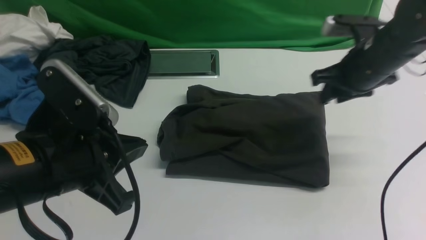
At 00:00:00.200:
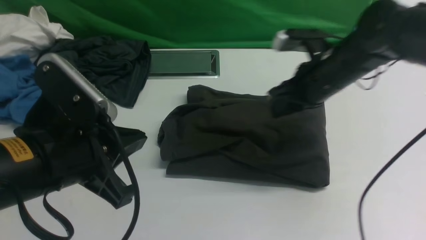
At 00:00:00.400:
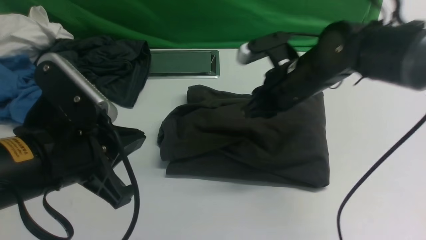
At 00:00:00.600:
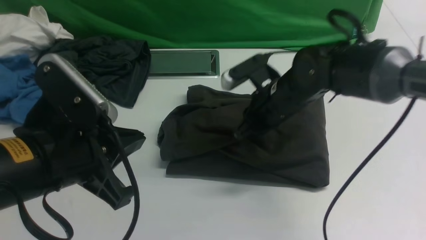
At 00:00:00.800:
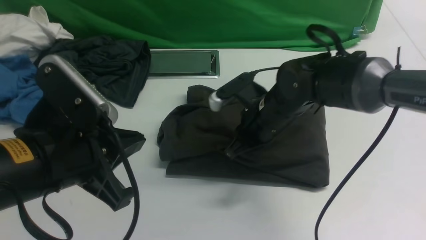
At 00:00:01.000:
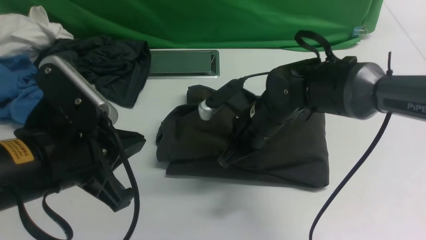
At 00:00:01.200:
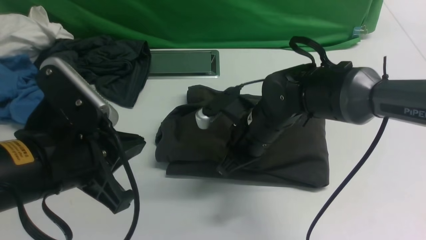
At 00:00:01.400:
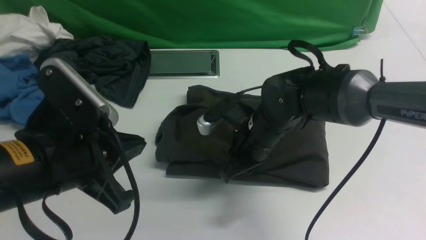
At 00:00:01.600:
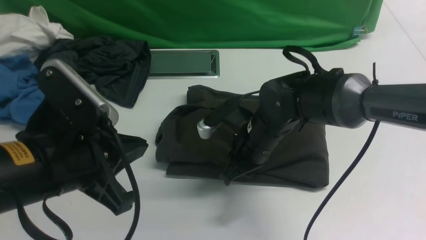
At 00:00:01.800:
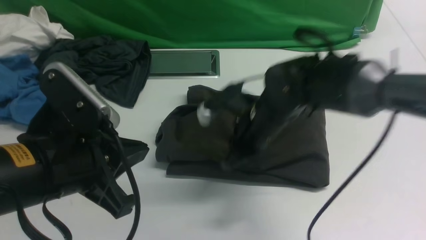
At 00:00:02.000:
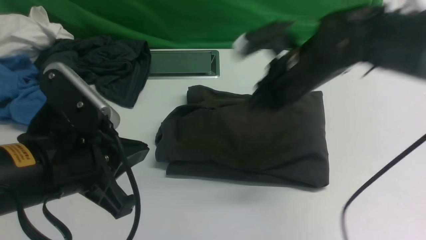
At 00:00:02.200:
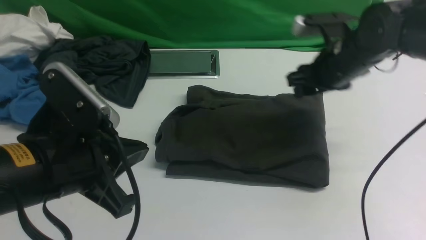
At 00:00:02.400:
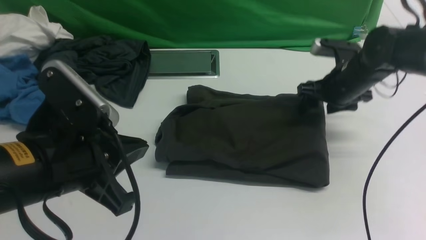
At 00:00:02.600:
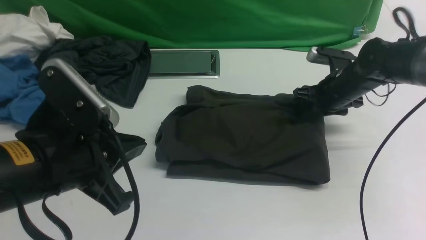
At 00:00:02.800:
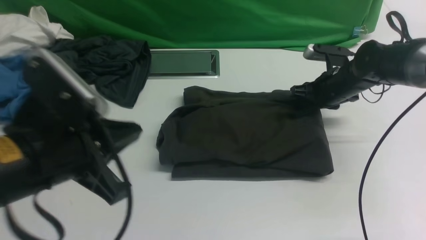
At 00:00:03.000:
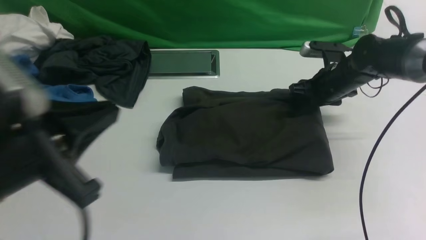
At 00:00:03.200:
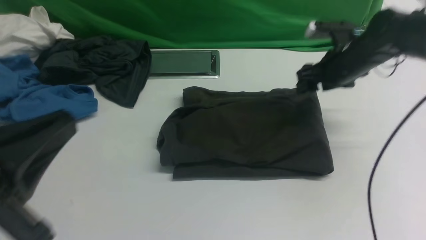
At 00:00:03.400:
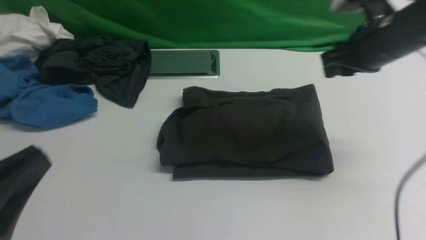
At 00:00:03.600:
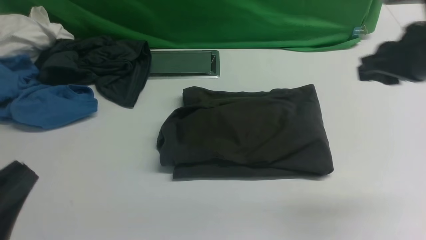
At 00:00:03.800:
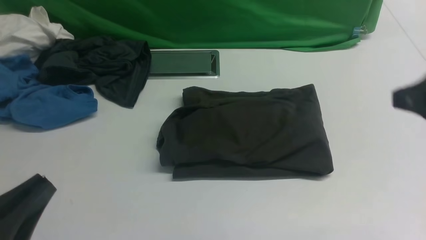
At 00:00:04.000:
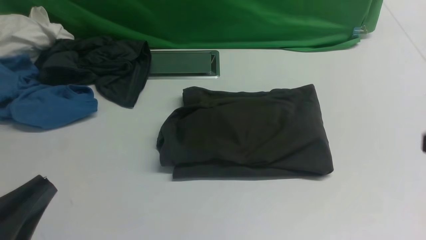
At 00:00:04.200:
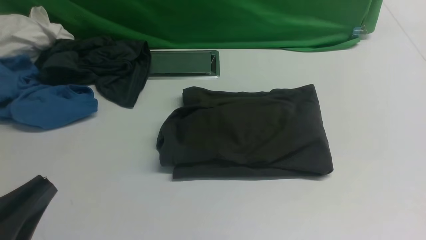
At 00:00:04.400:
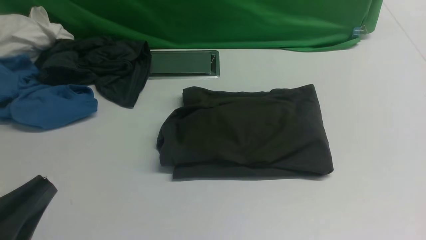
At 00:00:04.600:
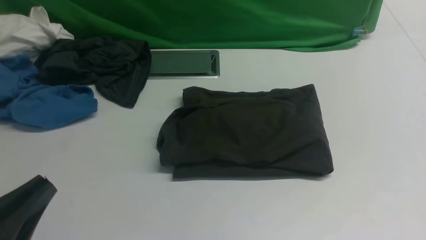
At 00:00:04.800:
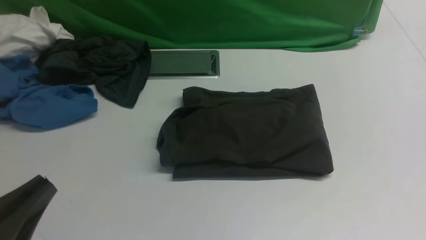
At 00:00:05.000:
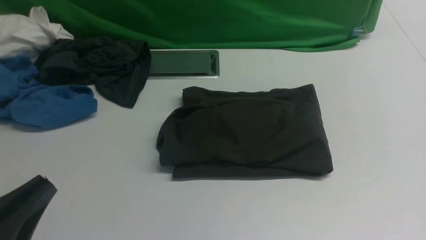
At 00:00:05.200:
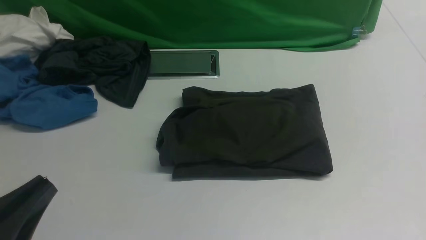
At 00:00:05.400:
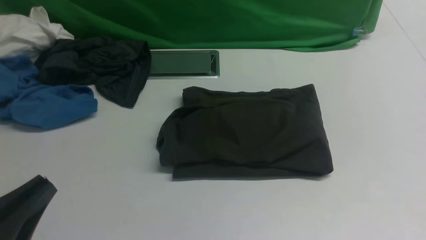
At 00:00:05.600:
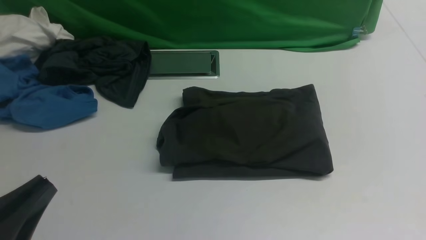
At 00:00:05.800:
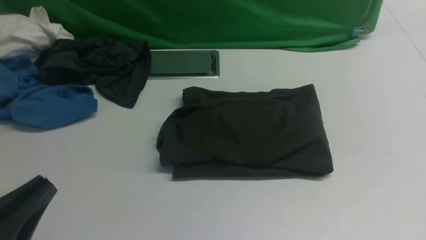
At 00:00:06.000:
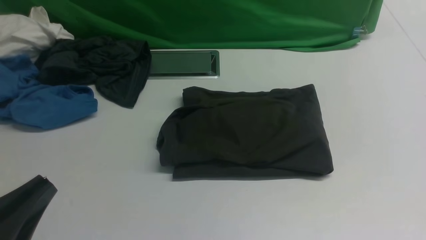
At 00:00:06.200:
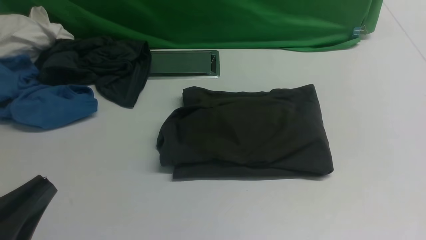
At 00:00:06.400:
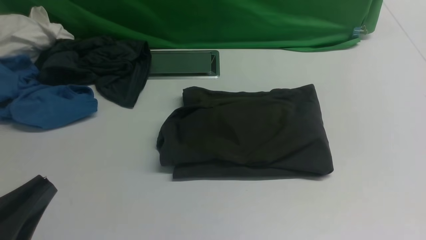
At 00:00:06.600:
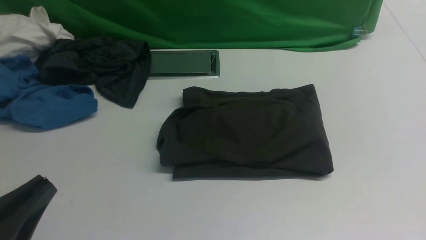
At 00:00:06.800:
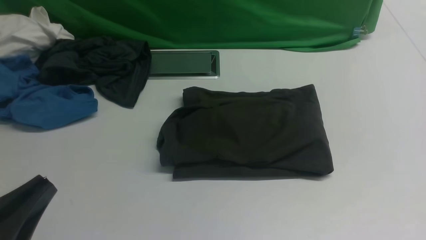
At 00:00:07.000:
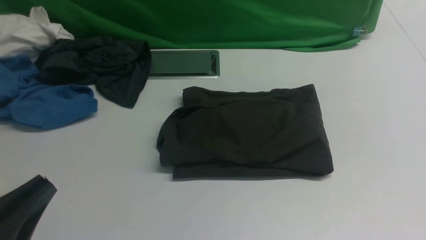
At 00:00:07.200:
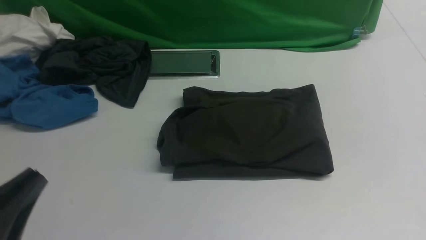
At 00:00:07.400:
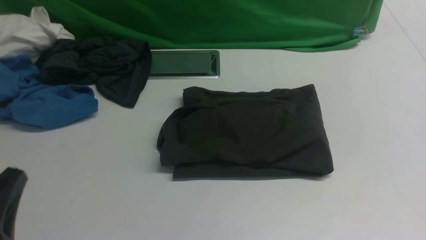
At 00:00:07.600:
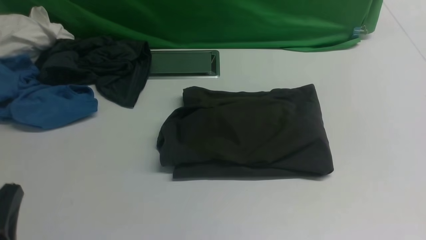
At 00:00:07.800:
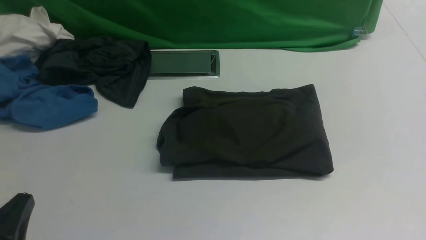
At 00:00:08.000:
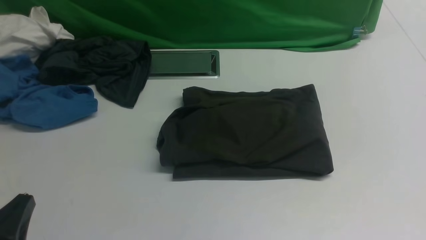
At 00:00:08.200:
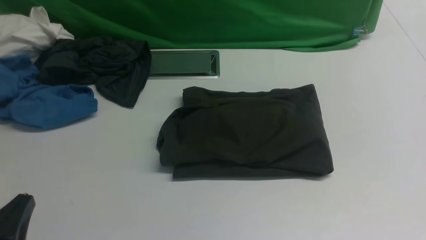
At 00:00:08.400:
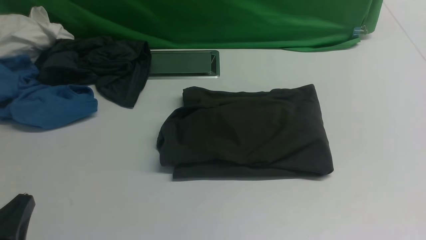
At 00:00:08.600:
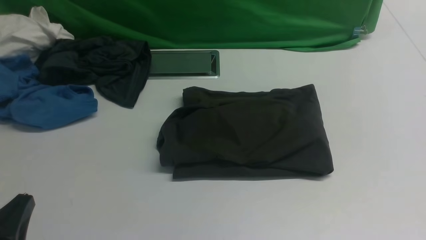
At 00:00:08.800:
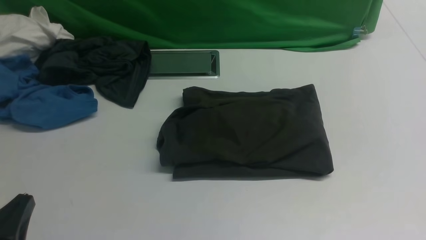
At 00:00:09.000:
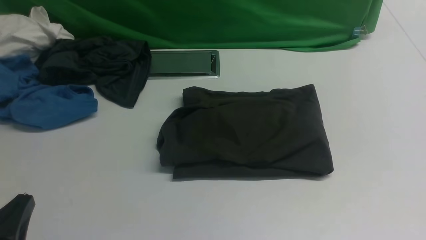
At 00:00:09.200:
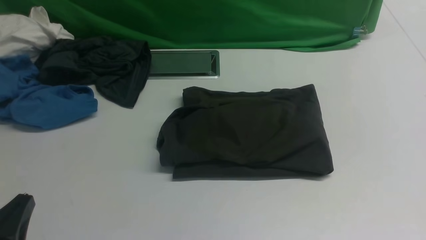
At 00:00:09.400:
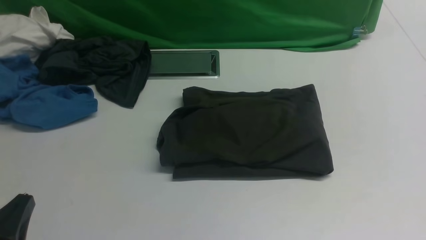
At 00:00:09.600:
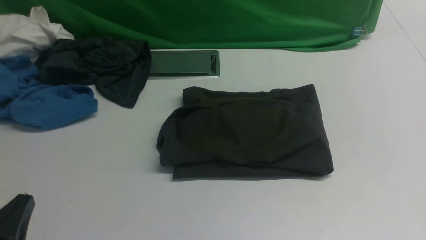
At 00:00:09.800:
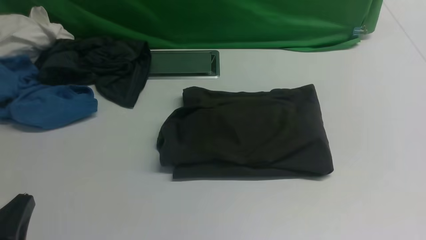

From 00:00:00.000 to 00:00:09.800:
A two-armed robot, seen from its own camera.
From 00:00:00.000 to 00:00:01.400: The right gripper heads to the left and downward, covering roughly 15 cm.
From 00:00:01.400 to 00:00:02.800: The right gripper travels to the right and forward by about 20 cm, and opens.
From 00:00:02.800 to 00:00:04.200: The right gripper travels backward and upward by some 40 cm, and closes up, while the left gripper moves backward, downward and to the left, about 15 cm.
From 00:00:05.600 to 00:00:07.000: Neither gripper changes place.
From 00:00:07.000 to 00:00:08.400: The left gripper is displaced downward by about 5 cm.
From 00:00:08.400 to 00:00:09.800: Both grippers stay put.
